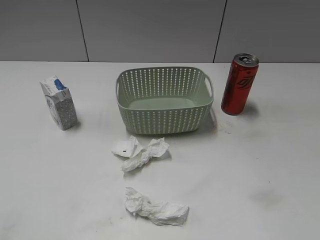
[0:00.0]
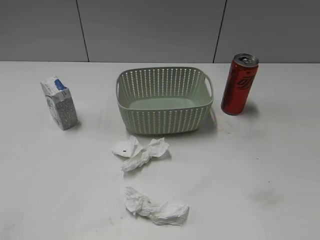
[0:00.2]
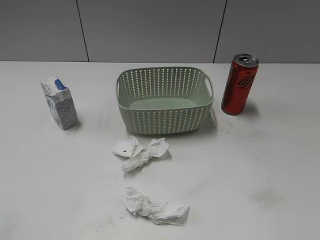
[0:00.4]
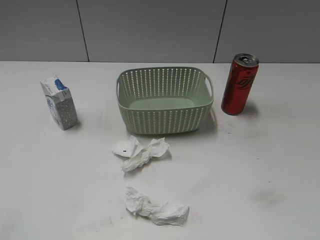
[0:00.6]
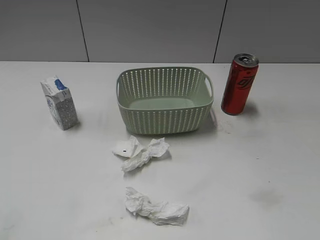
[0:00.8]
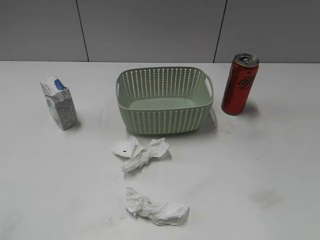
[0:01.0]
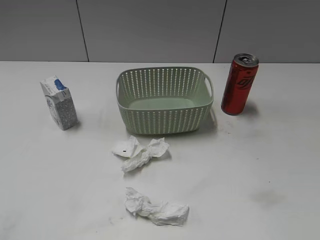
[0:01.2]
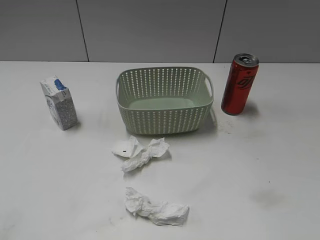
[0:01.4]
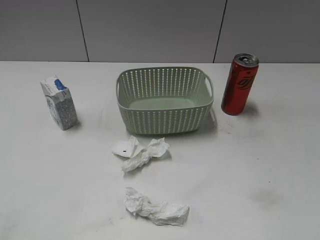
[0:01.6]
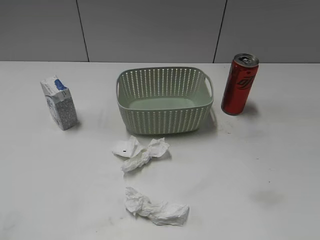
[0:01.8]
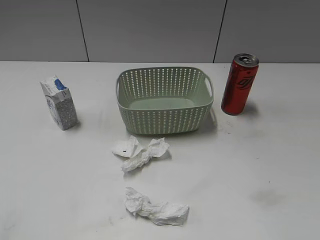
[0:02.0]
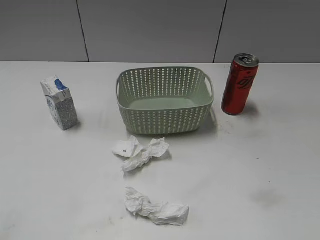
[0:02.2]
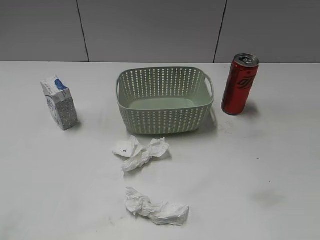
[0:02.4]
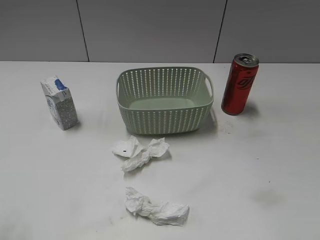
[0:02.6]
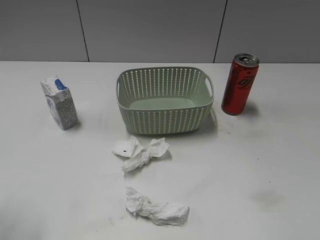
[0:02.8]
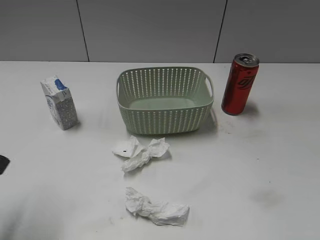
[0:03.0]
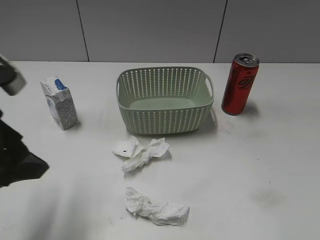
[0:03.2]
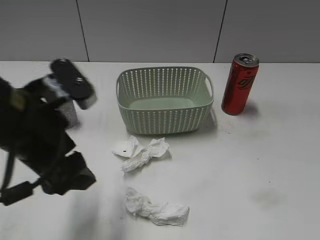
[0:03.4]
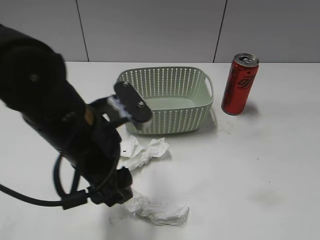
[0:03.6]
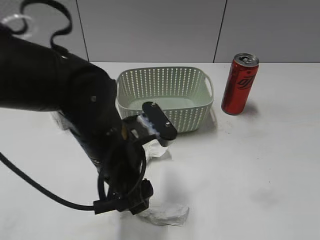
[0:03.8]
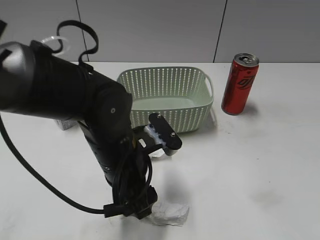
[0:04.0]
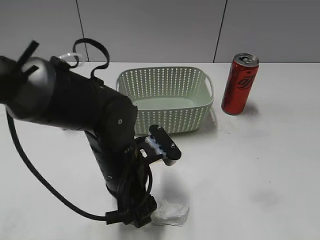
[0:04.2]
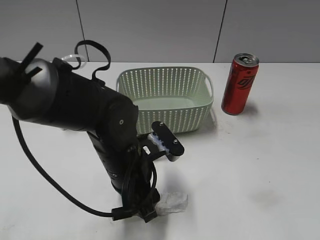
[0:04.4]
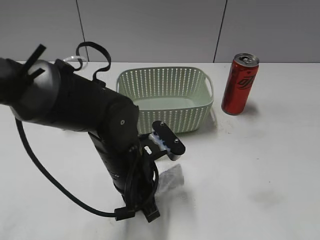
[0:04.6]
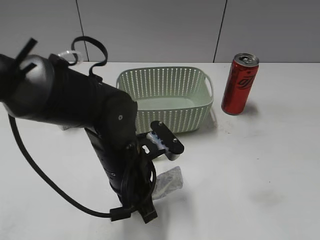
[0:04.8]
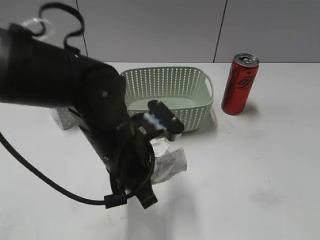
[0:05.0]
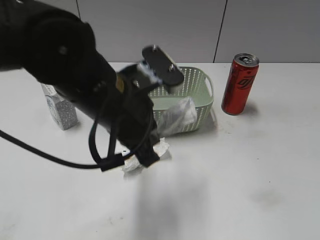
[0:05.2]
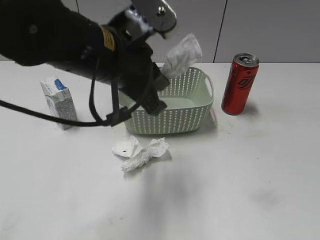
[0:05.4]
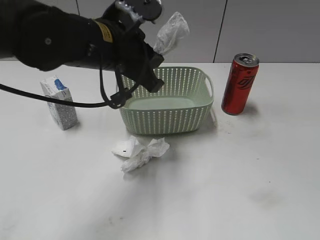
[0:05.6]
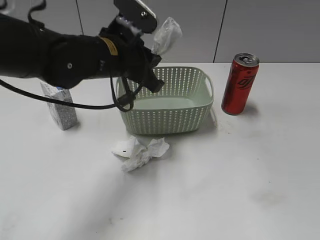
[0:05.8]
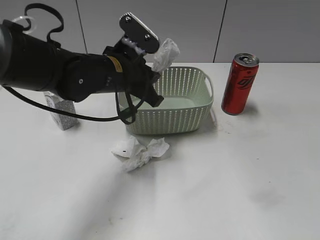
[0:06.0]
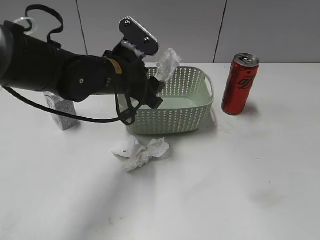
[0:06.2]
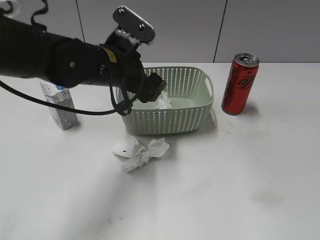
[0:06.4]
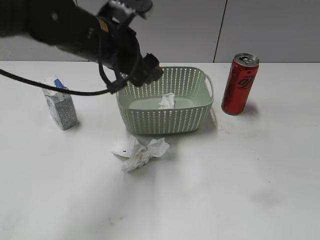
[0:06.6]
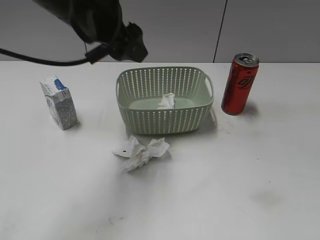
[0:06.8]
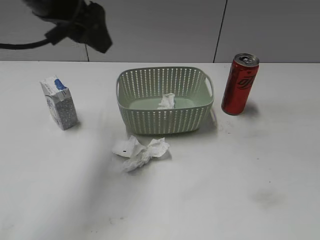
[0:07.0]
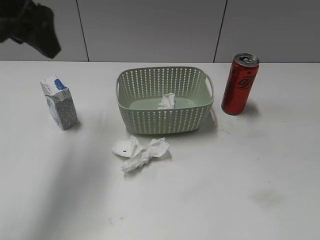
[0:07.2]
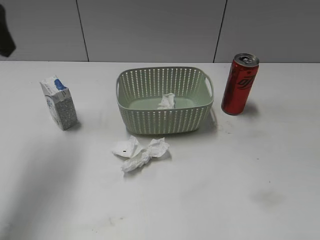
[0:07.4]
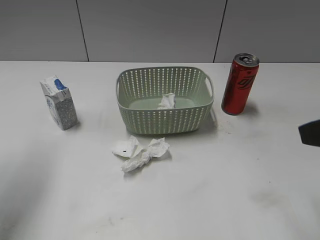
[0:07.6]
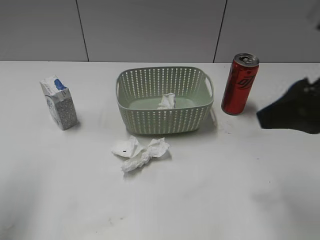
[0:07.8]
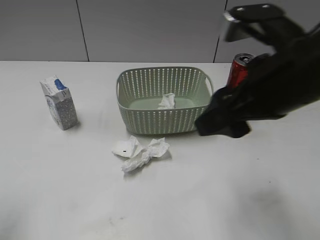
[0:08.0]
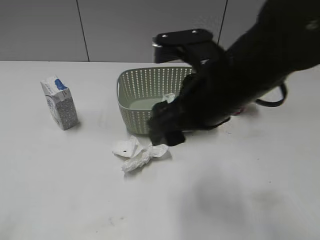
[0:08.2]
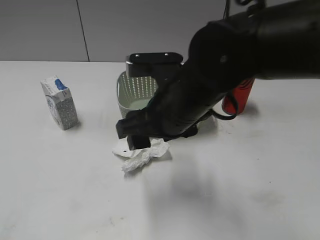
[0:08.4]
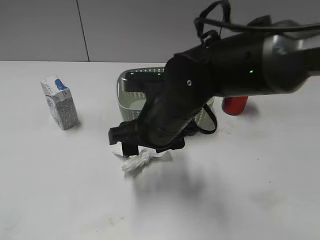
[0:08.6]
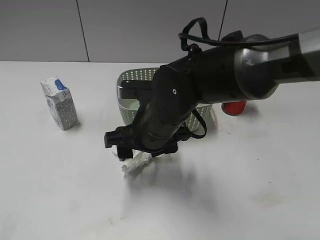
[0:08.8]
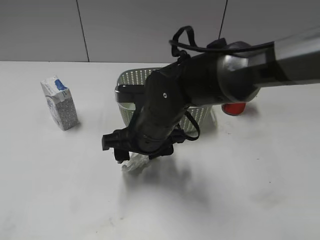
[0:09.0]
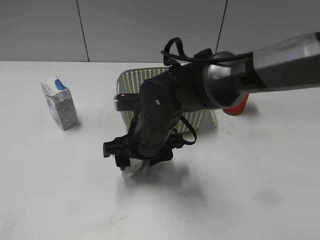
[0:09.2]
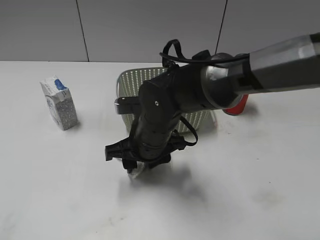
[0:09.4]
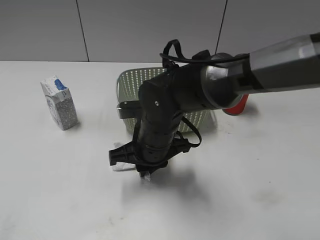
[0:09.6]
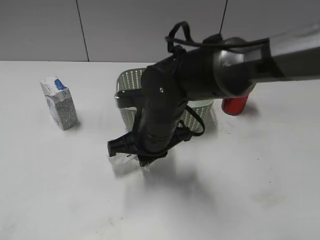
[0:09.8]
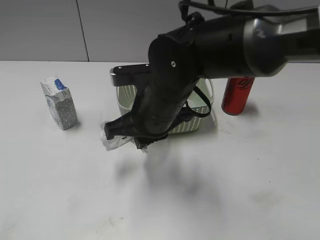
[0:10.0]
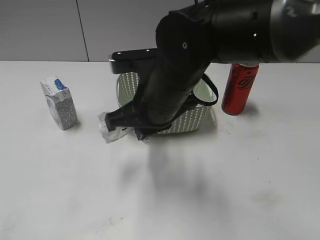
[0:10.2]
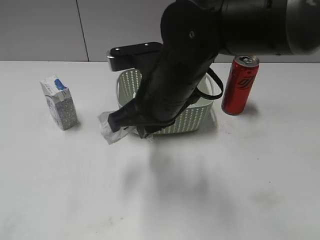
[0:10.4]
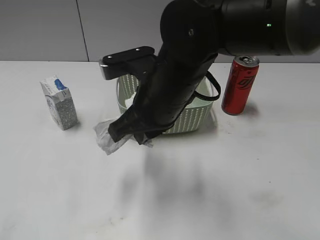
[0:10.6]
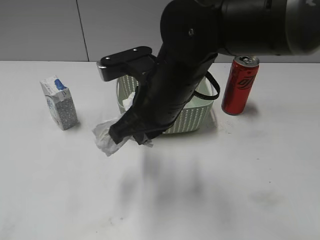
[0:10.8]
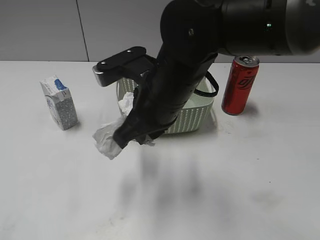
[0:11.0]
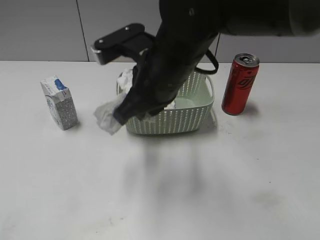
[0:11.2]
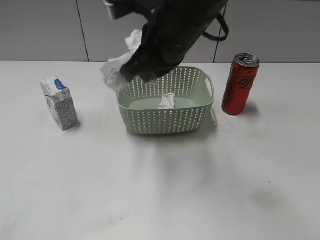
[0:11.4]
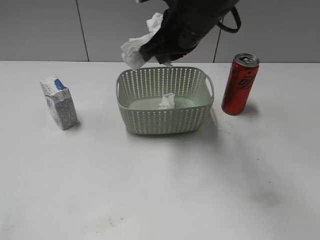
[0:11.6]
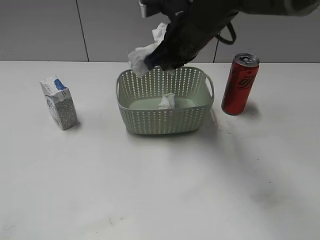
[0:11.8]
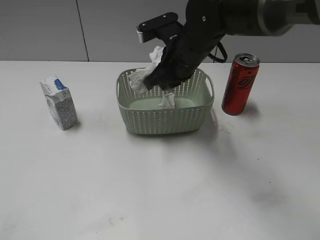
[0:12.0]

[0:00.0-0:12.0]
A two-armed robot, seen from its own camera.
Step, 0:02.8 to 0:04.6: Grasp the waste paper with left gripper.
Step, 0:04.8 to 0:06.4: Place the waste paper in the basket with left gripper.
Step, 0:06.6 to 0:09.8: Grasp the waste paper with right gripper.
0:01.6 to 0:03.0: The left gripper moves forward, about 15 cm, and opens.
0:03.0 to 0:04.4: The left gripper travels to the right and downward by some 25 cm.
0:04.4 to 0:06.0: The left gripper shifts about 15 cm forward and upward, and closes its fingers.
0:06.0 to 0:07.6: The right gripper goes some 15 cm forward. Meanwhile the left gripper travels to the left and upward by some 25 cm, and opens up.
0:07.6 to 0:09.0: The left gripper heads backward, covering approximately 25 cm; the right gripper shifts some 35 cm to the left, downward and forward.
0:09.0 to 0:10.4: The right gripper goes some 10 cm upward, and closes up.
0:10.4 to 0:12.0: The right gripper goes about 10 cm forward.

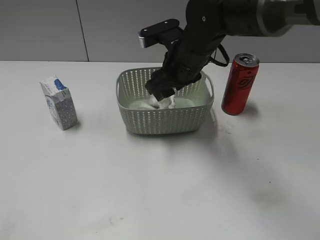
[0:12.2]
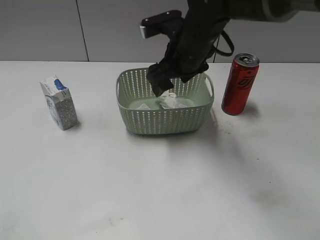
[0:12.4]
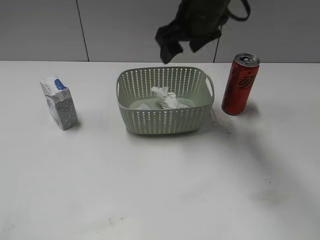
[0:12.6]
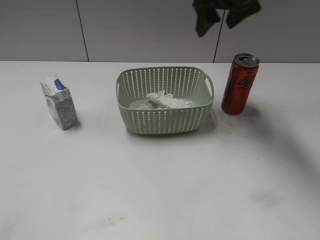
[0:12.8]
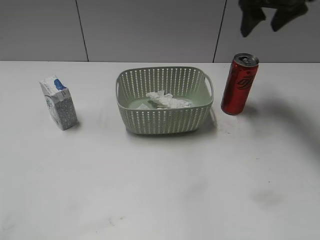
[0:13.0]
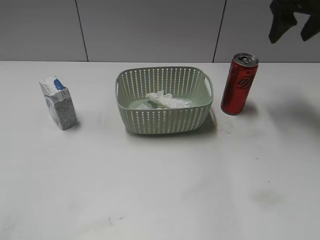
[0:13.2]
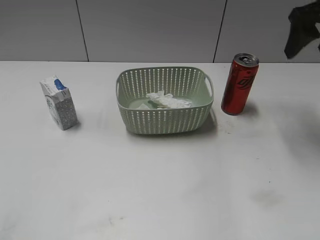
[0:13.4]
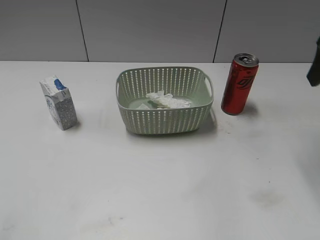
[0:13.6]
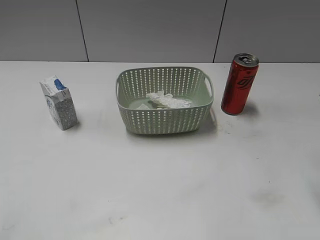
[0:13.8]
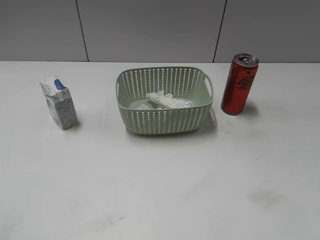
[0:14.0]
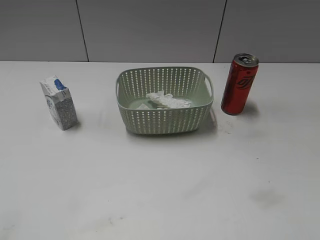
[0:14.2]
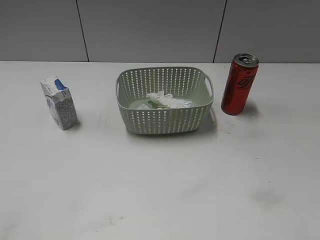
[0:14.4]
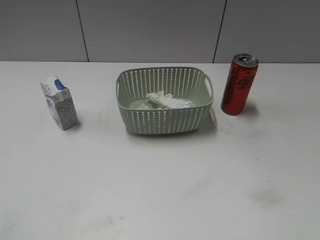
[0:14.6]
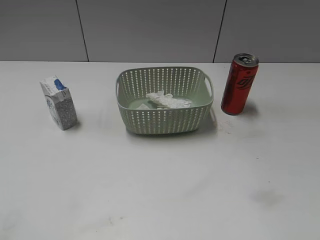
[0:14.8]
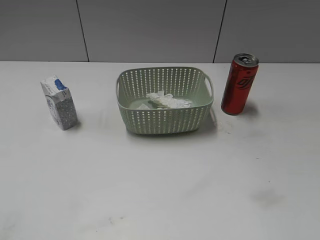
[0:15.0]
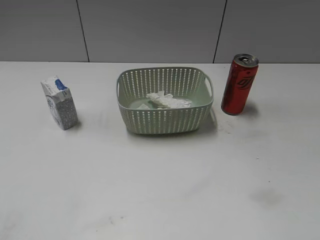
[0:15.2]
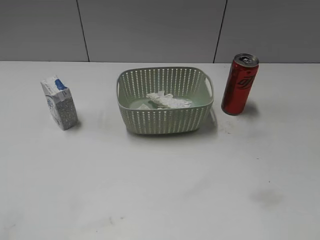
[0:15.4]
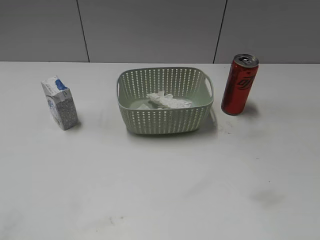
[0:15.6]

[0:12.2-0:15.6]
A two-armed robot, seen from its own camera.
0:12.2 to 0:13.8: The right gripper is displaced to the right, backward and upward by about 30 cm.

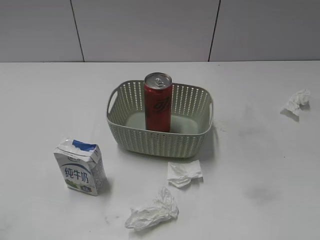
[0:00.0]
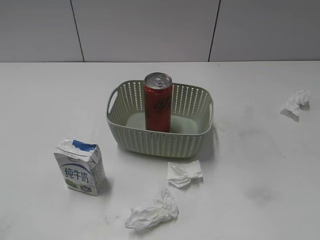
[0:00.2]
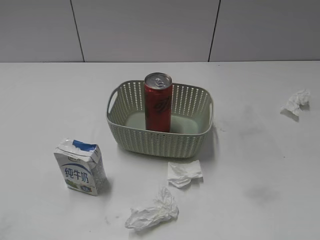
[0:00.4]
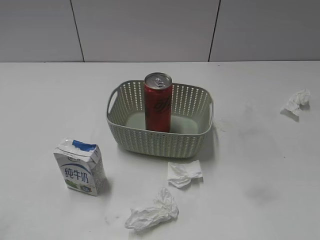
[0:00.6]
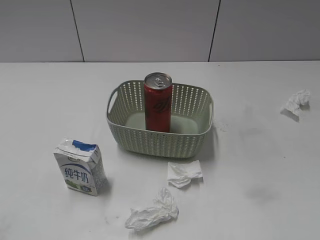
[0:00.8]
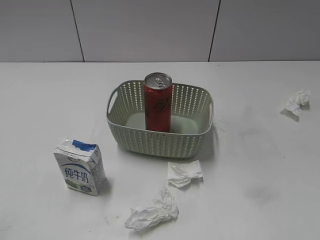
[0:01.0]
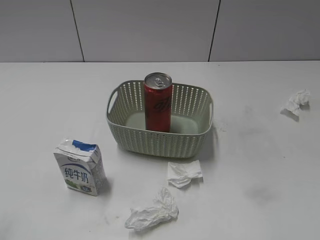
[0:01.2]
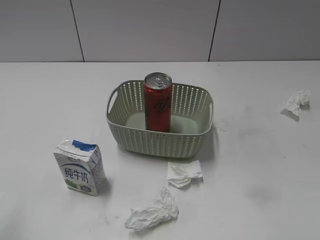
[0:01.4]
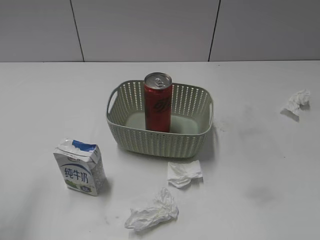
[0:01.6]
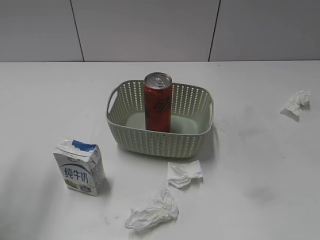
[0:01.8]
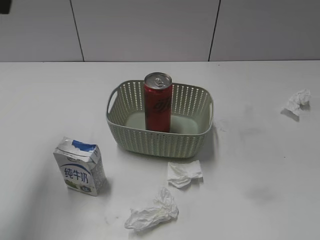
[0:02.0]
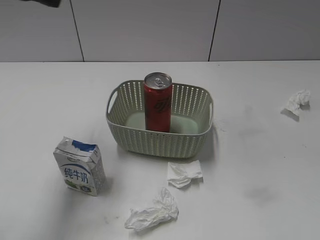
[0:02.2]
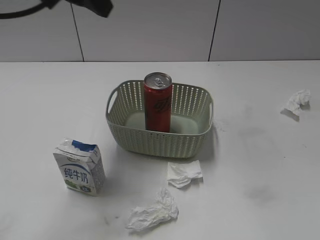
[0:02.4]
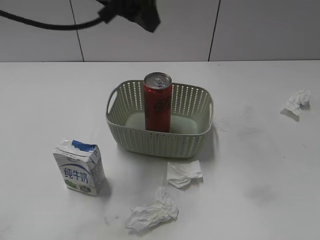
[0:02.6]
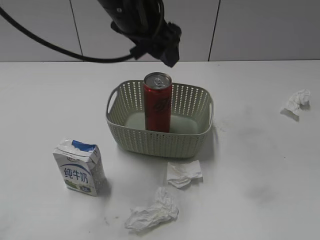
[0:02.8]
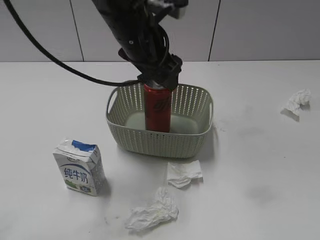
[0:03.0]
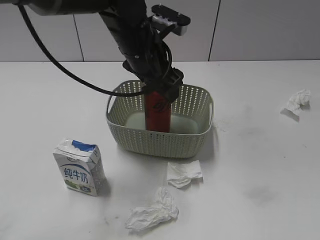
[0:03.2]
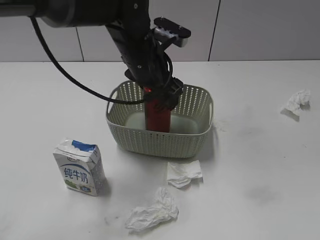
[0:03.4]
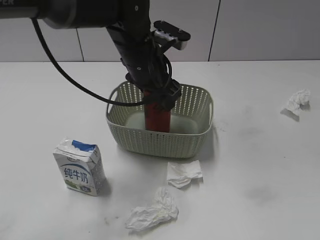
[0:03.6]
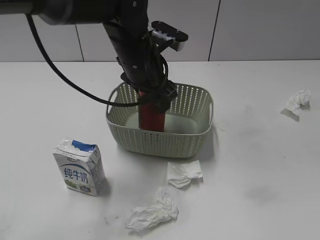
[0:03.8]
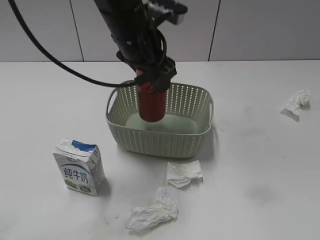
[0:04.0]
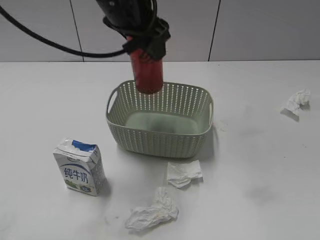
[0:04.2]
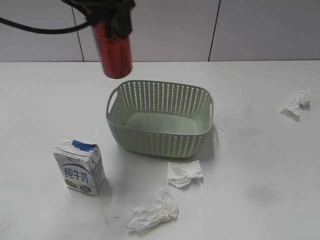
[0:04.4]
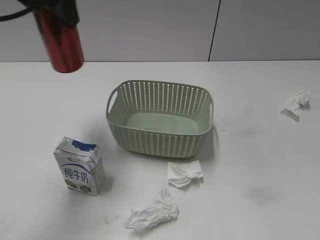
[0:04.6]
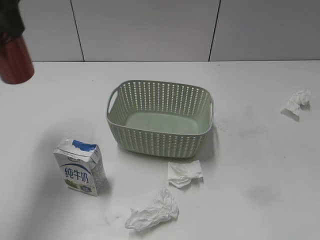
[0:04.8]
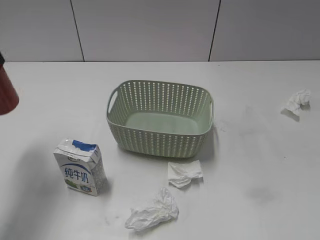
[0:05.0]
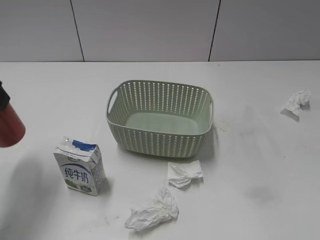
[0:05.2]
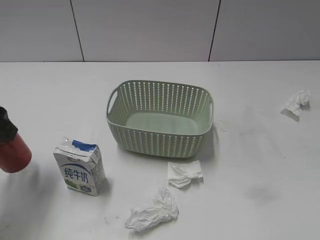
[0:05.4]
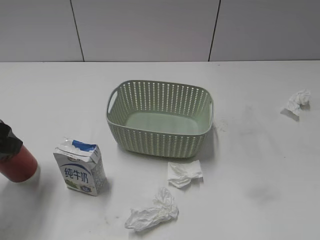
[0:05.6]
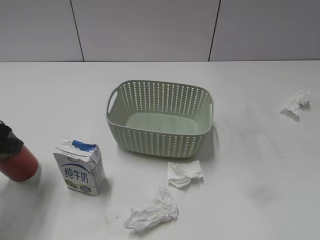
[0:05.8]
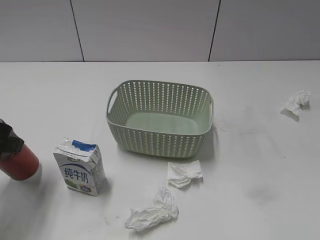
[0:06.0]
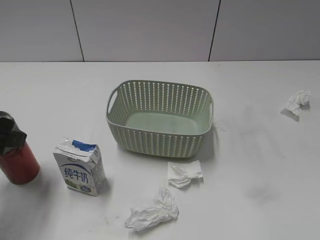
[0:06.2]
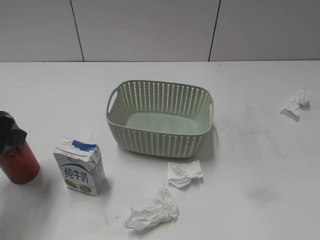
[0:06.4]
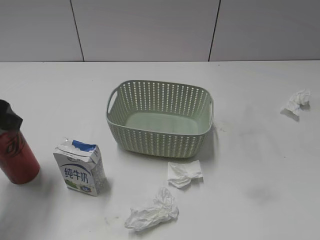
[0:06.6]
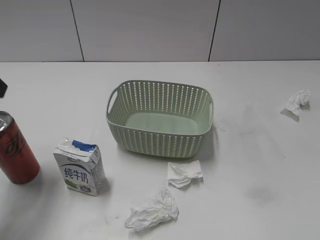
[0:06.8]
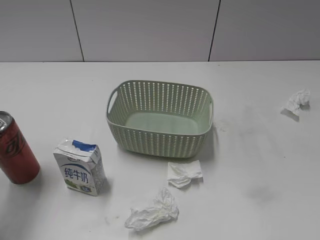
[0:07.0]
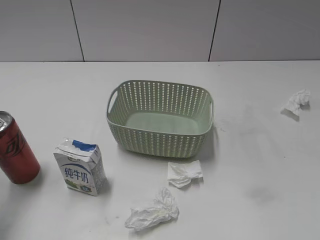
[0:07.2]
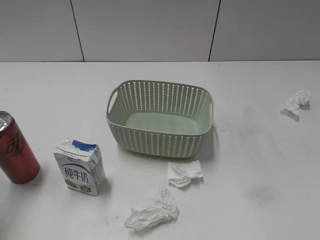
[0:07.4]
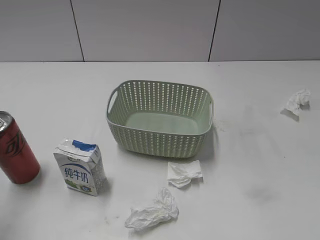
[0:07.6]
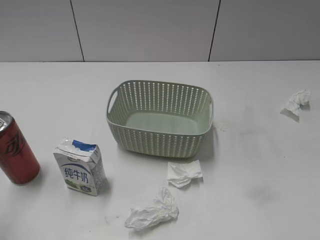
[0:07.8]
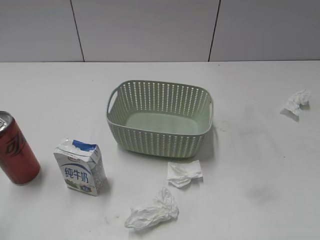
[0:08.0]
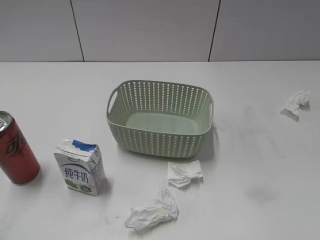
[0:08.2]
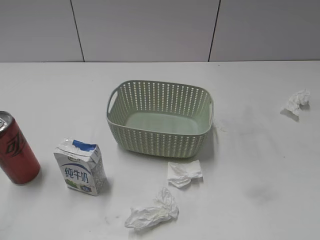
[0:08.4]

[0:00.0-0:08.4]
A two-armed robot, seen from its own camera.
Step, 0:02.0 to 0:03.8: Grasp the cola can with left gripper.
Step, 0:04.0 to 0:06.8: Place the cola can on the table with left gripper.
0:01.4 to 0:02.8: The left gripper goes approximately 35 cm to the right and forward, and opens.
0:02.8 to 0:04.2: The left gripper travels downward and back again, roughly 10 cm each way, and closes up.
0:04.2 to 0:05.6: The left gripper goes approximately 30 cm to the left, backward and downward.
0:05.6 to 0:07.0: The left gripper is displaced upward by approximately 15 cm, and opens.
0:07.0 to 0:08.4: The left gripper heads backward, covering roughly 20 cm.
